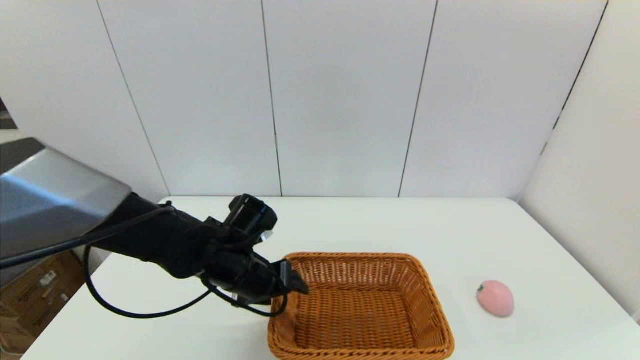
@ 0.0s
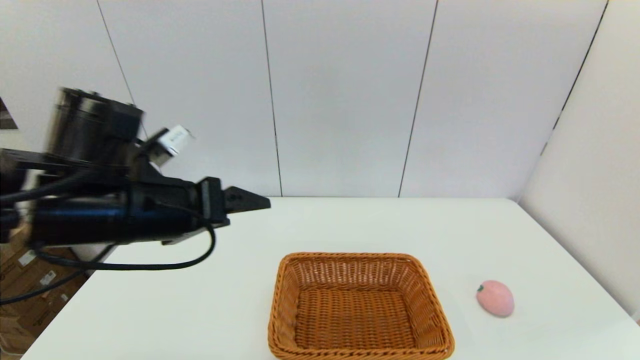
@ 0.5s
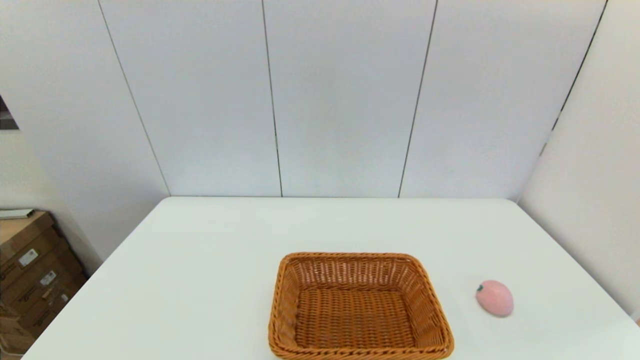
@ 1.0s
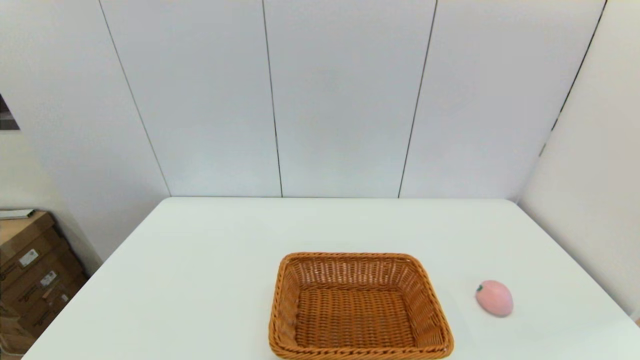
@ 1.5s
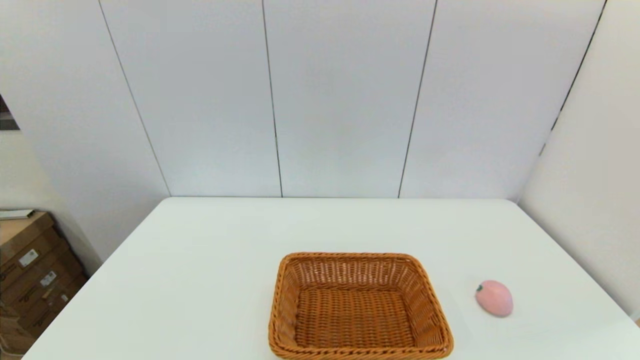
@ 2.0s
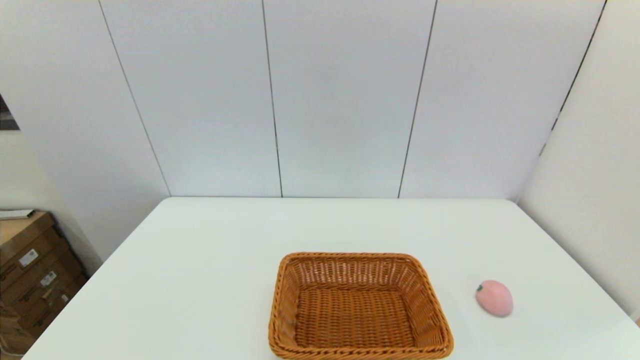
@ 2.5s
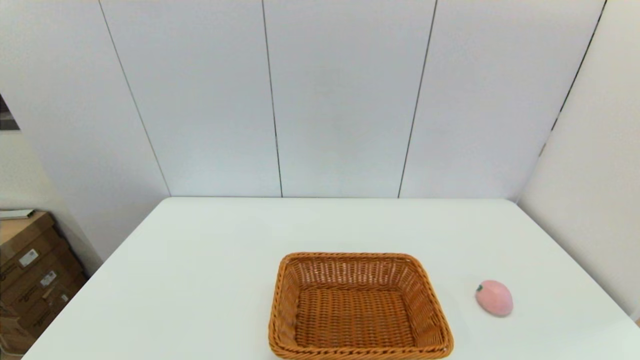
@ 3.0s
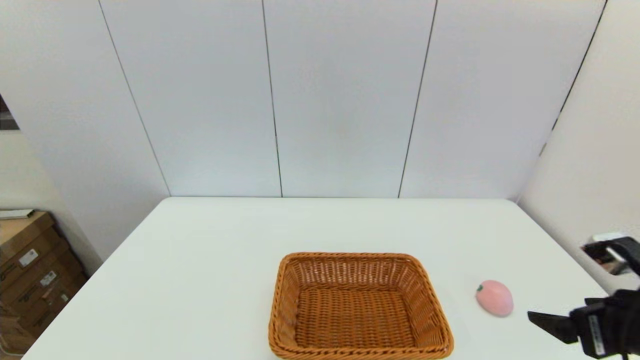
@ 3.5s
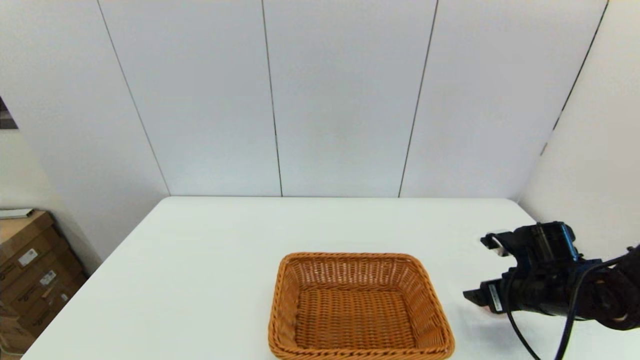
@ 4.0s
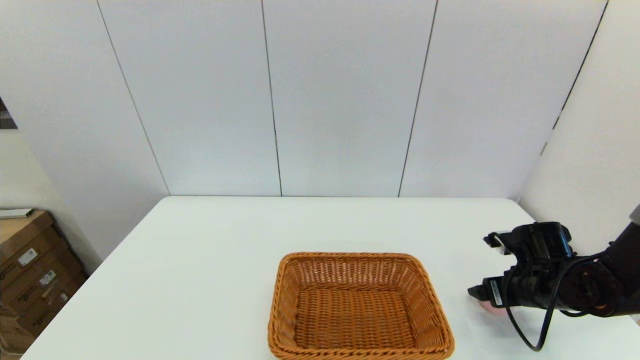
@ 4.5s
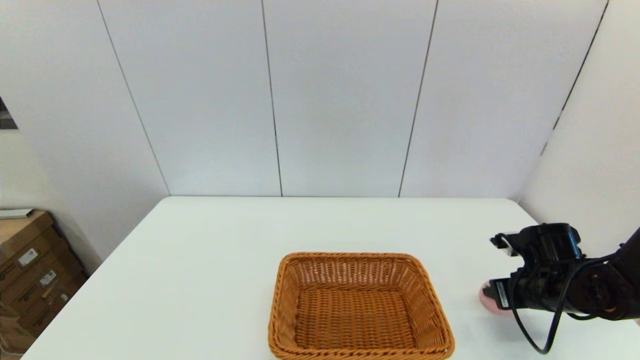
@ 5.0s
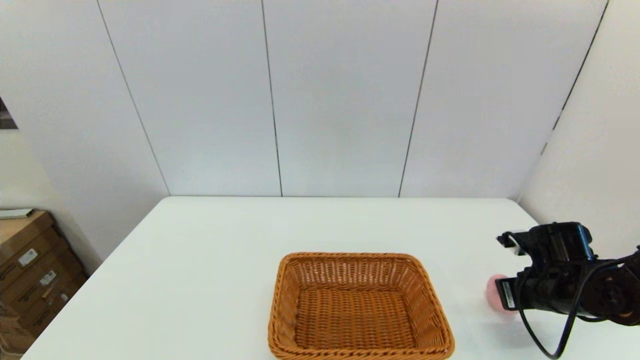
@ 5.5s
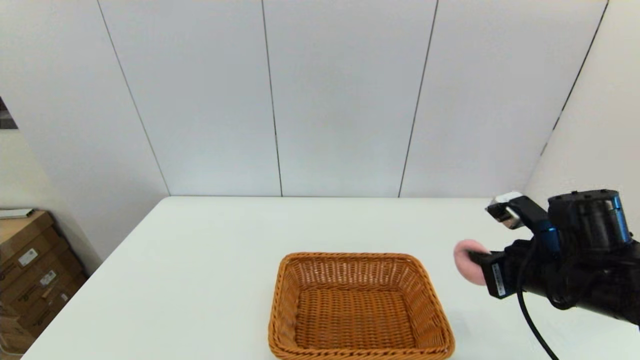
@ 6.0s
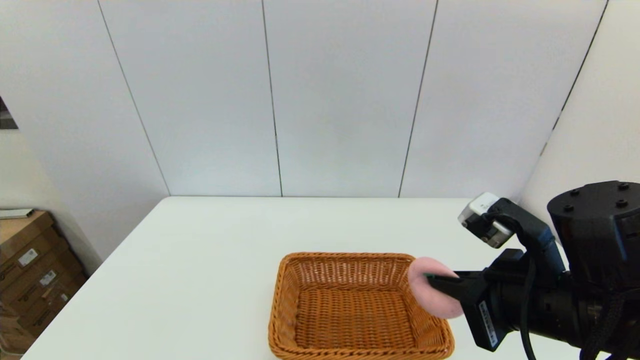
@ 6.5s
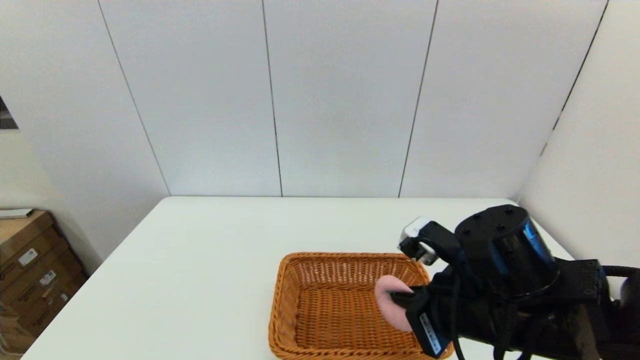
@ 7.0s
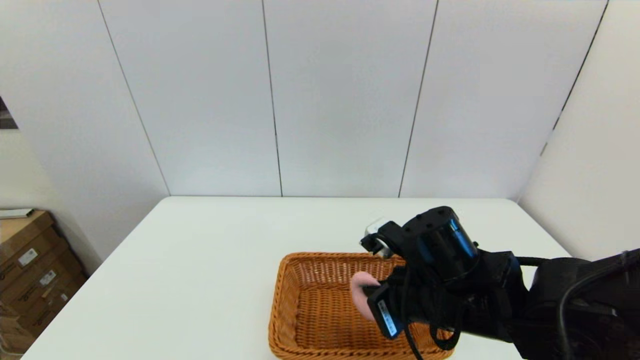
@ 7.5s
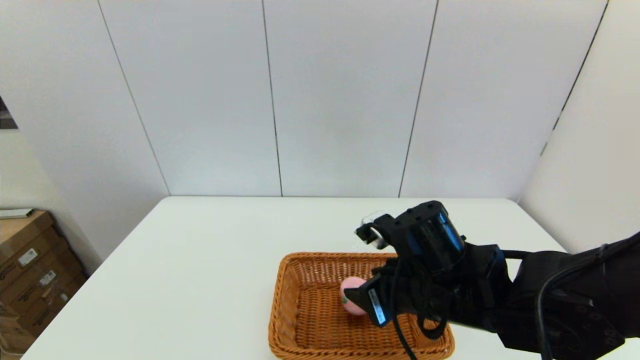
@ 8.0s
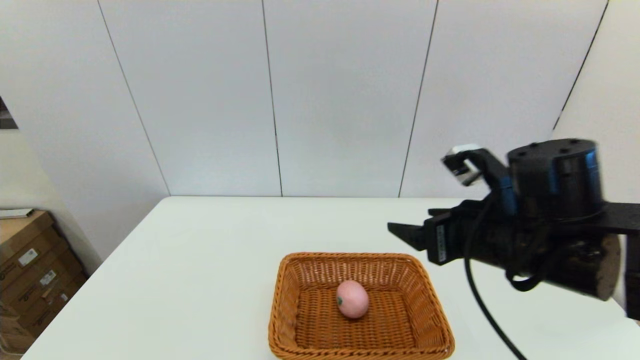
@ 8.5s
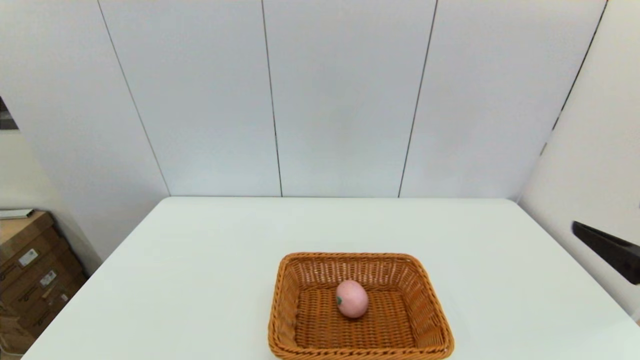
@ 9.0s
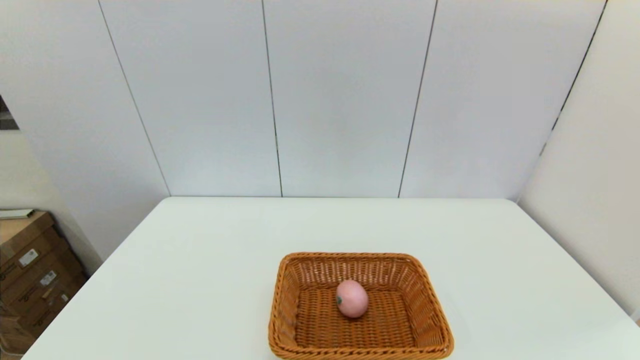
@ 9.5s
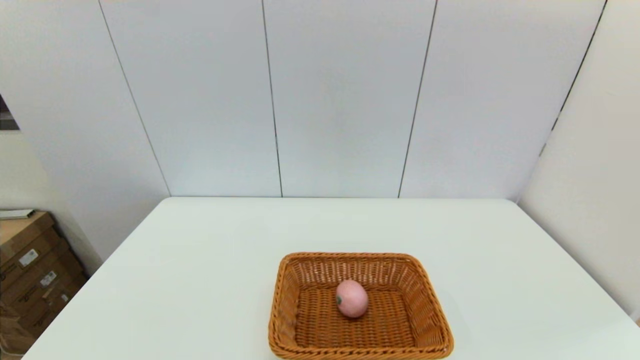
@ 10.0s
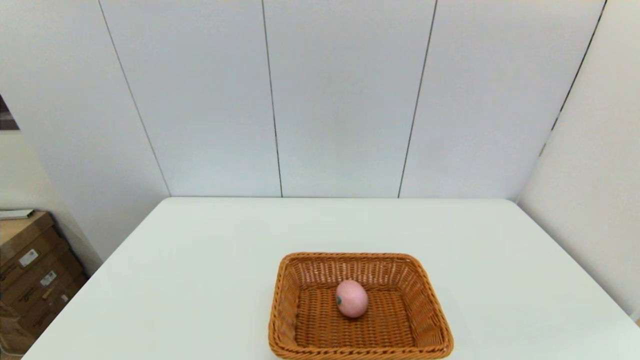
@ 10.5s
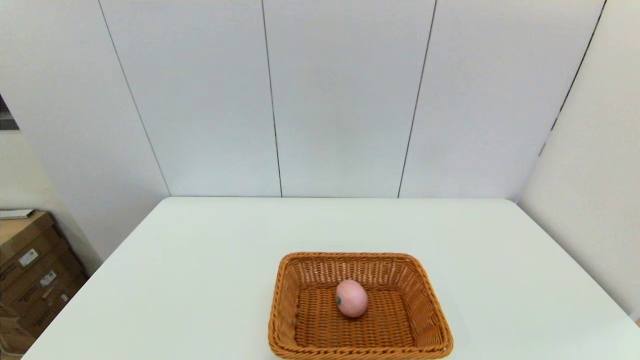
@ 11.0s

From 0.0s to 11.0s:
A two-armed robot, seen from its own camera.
Step, from 0.0s to 5.0s: Grasp the peach with the right gripper.
Step, from 5.5s to 8.0s: Place the peach into the light basket with the right gripper.
From 0.0s to 2.0s: The left gripper heads backward and to the left, covering some 35 cm.
From 2.0s to 3.5s: The right gripper shifts about 20 cm forward.
From 3.5s to 5.5s: The right gripper shifts about 15 cm forward and downward, and closes.
From 5.5s to 7.5s: The right gripper goes approximately 20 cm to the left.
From 7.5s to 9.0s: The right gripper shifts about 25 cm to the right, backward and upward, and opens up.
From 9.0s to 11.0s: The right gripper goes approximately 20 cm downward and backward.

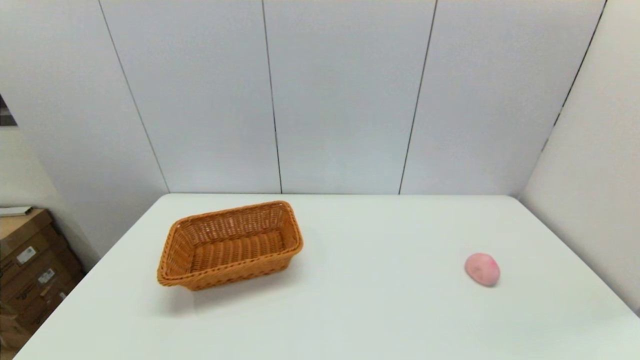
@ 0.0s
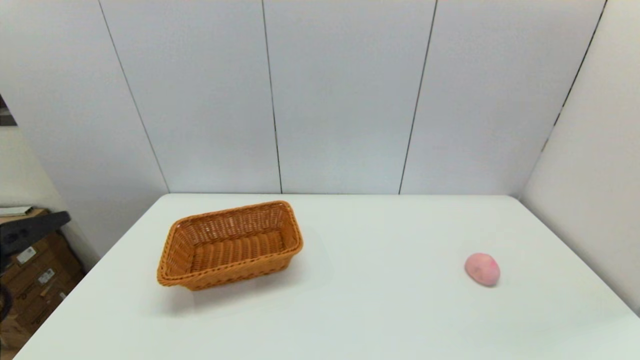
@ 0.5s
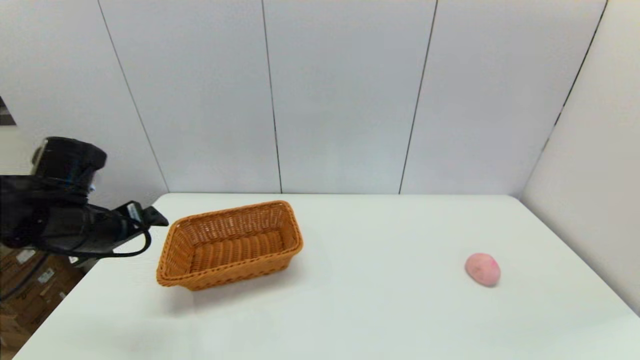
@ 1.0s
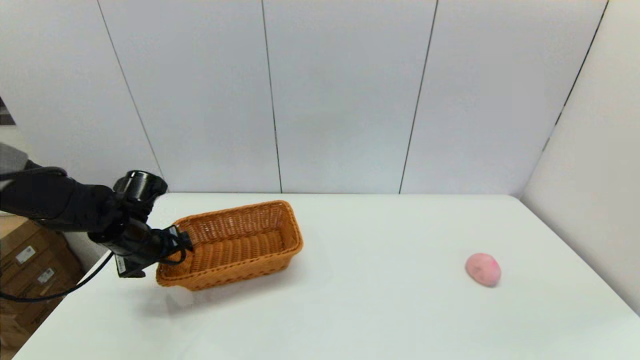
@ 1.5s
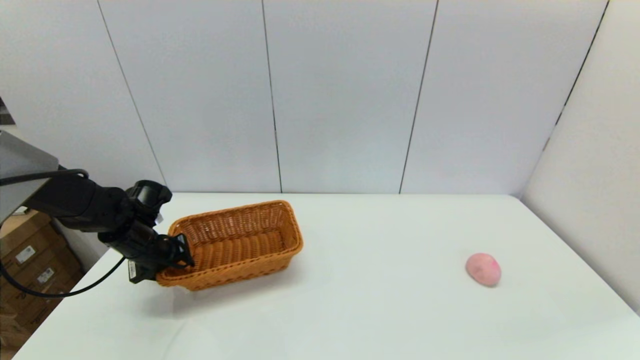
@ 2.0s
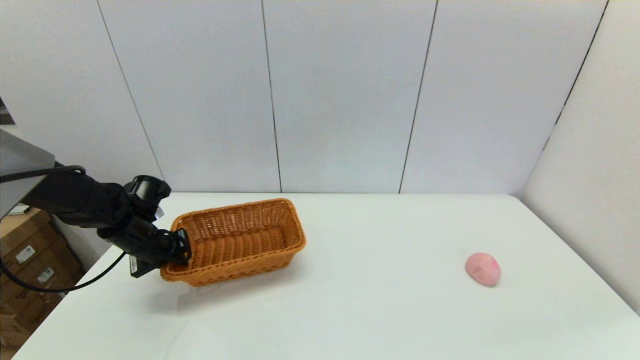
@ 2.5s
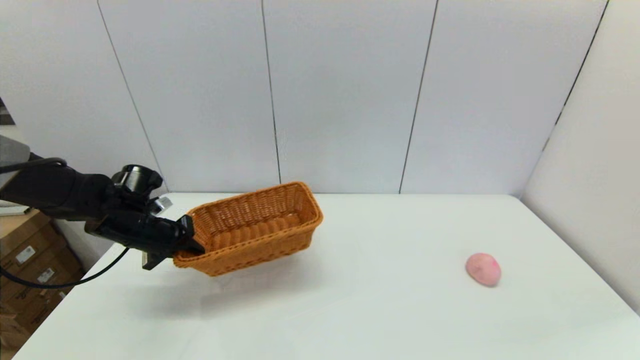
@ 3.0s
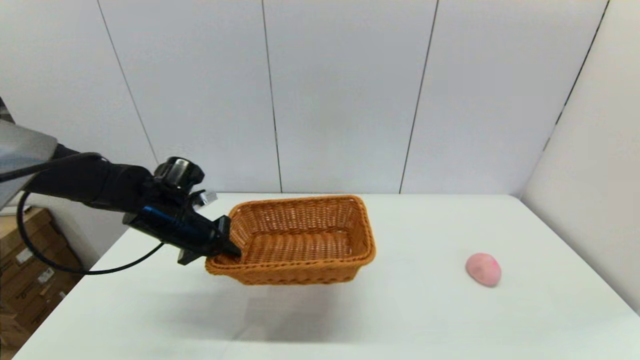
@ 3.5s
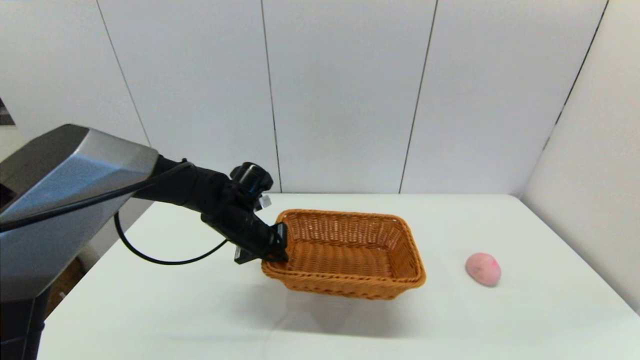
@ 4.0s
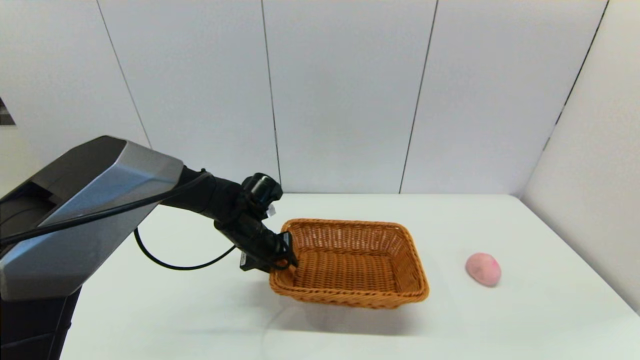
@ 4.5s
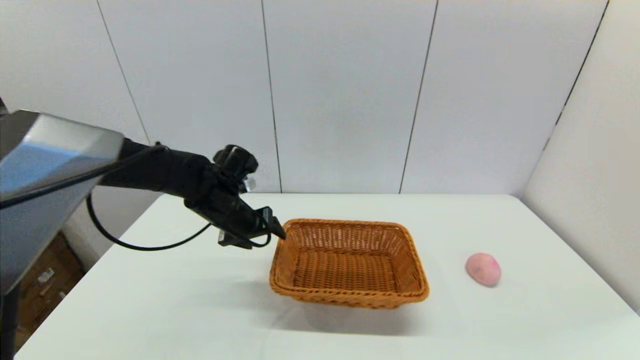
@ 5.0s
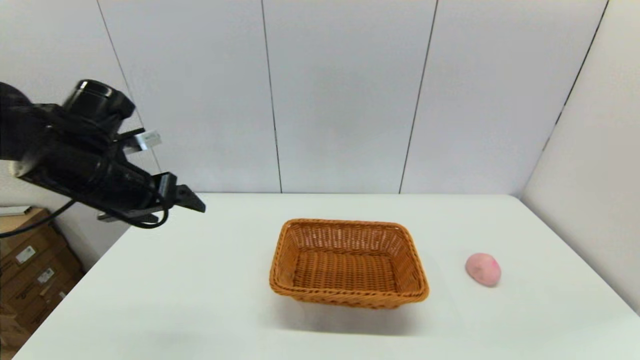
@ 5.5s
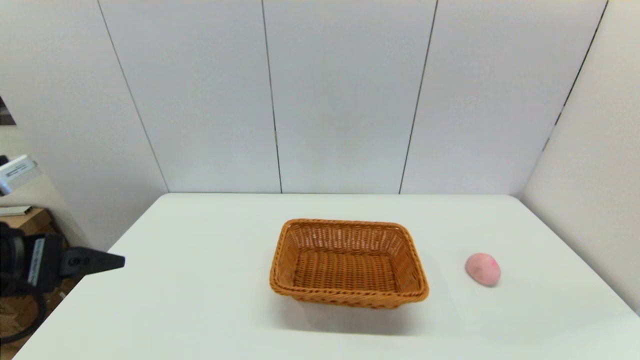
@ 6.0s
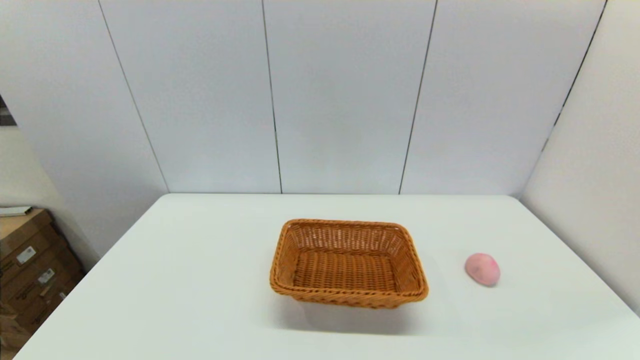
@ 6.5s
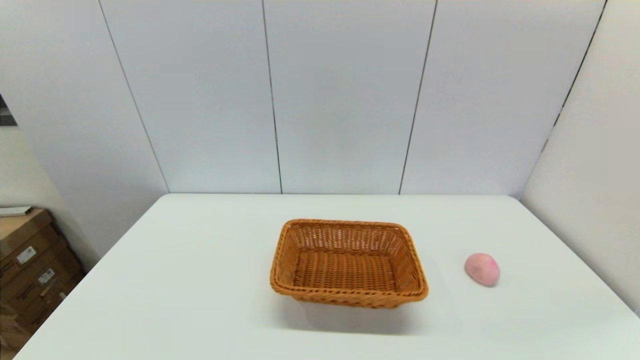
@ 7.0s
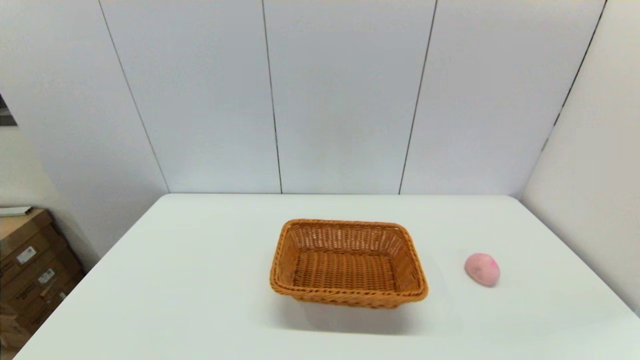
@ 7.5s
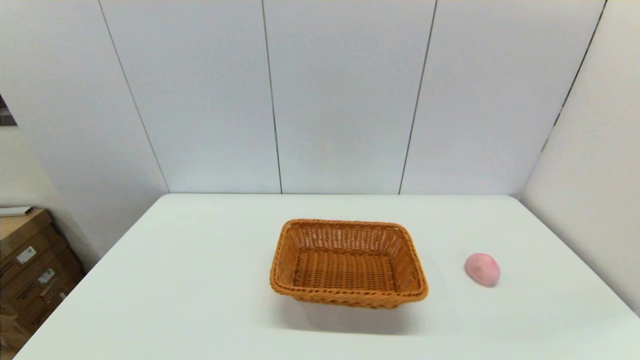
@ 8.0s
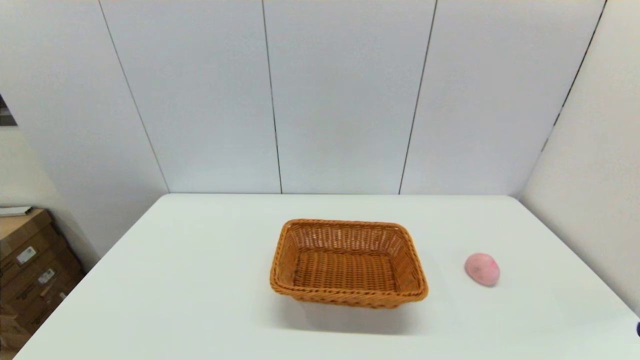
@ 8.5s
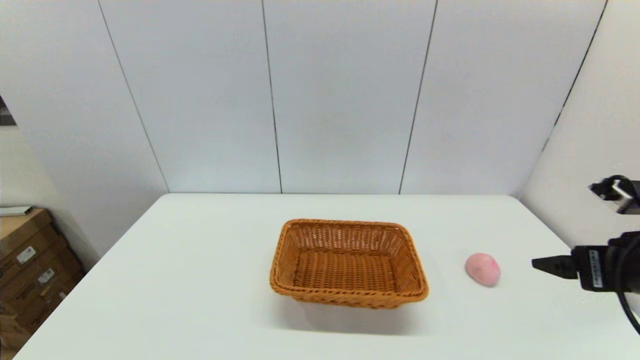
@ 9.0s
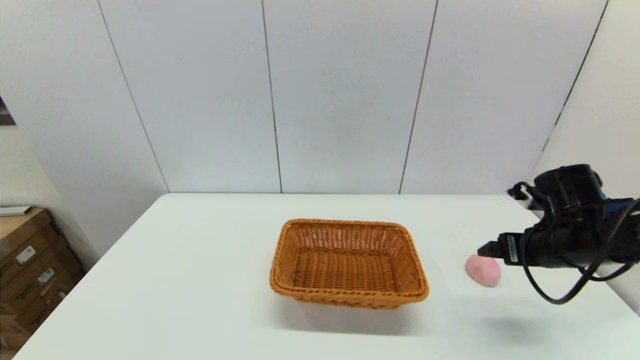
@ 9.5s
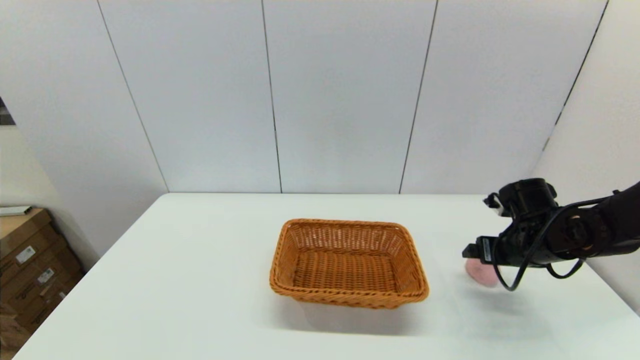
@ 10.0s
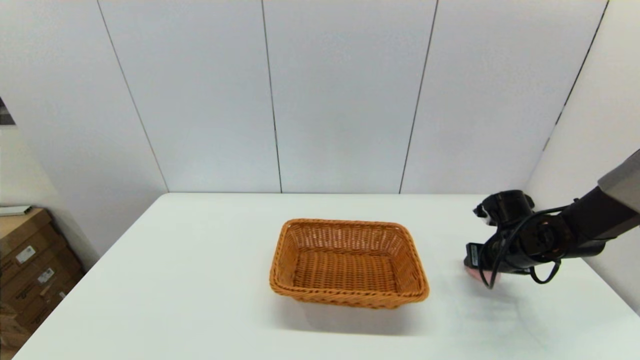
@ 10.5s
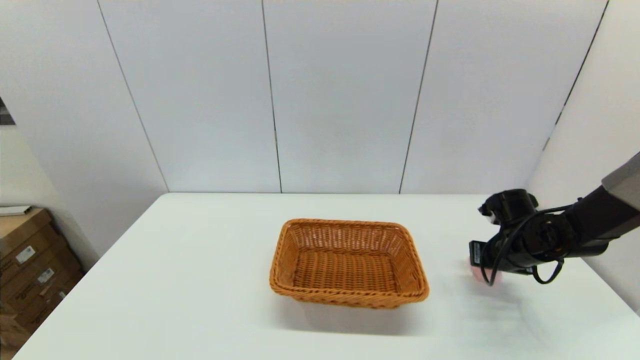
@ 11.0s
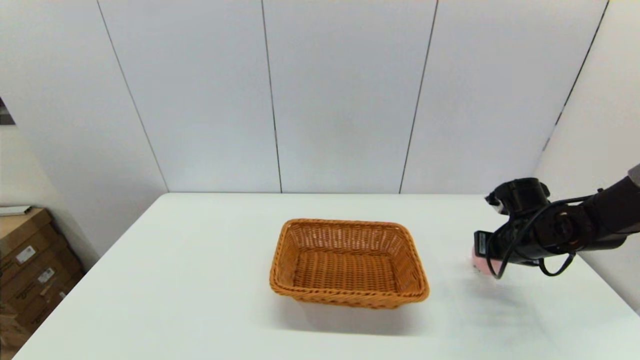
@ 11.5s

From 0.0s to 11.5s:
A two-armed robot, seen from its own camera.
Step, from 0.0s to 2.0s: Grasp the light basket with the left gripper.
Step, from 3.0s to 4.5s: Place the light basket on the middle of the table with the left gripper.
Step, from 5.0s to 11.0s: Grasp the peach with the right gripper.
From 0.0s to 2.0s: The left gripper heads forward, covering approximately 40 cm, and closes up.
From 2.0s to 4.0s: The left gripper moves to the right, approximately 20 cm, and closes its fingers.
From 4.0s to 6.0s: The left gripper shifts about 30 cm backward, upward and to the left, and opens.
From 6.0s to 7.5s: The left gripper goes some 25 cm backward and downward.
From 7.5s to 9.5s: The right gripper travels forward by approximately 30 cm.
From 9.5s to 11.5s: The right gripper moves forward and downward, some 10 cm, and closes its fingers.
